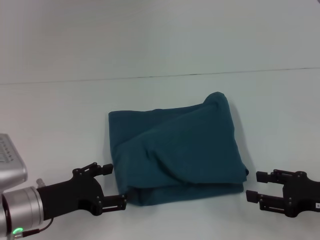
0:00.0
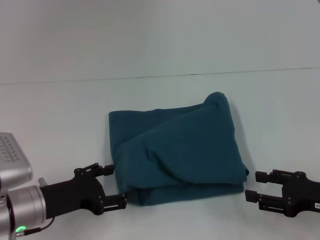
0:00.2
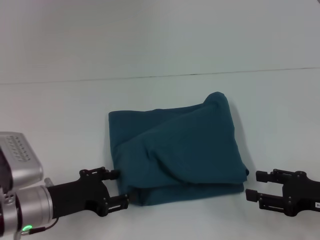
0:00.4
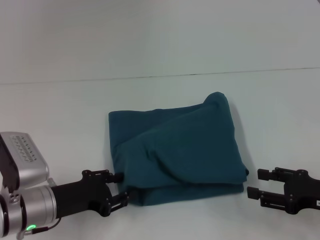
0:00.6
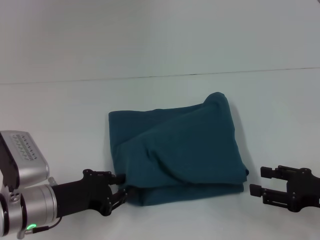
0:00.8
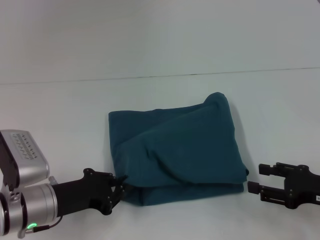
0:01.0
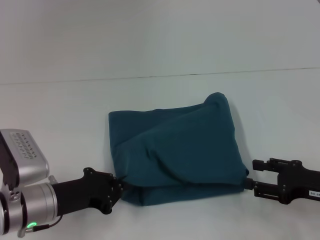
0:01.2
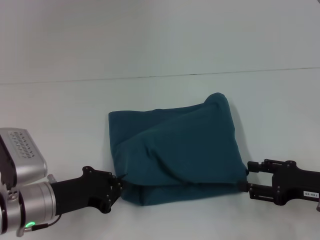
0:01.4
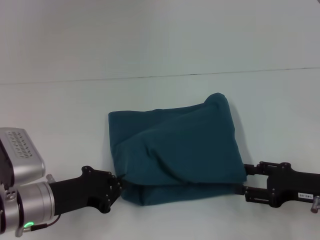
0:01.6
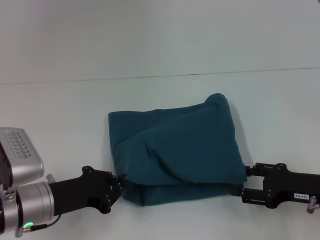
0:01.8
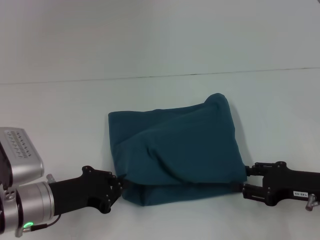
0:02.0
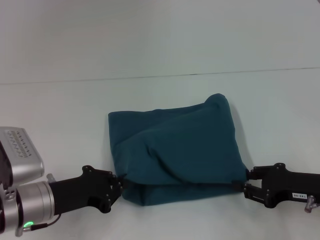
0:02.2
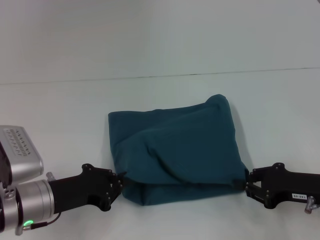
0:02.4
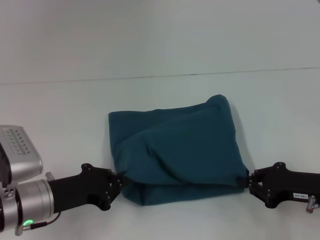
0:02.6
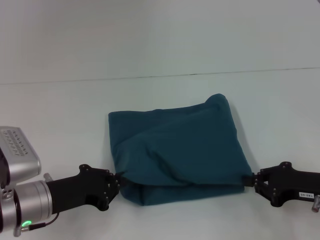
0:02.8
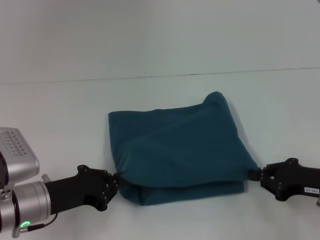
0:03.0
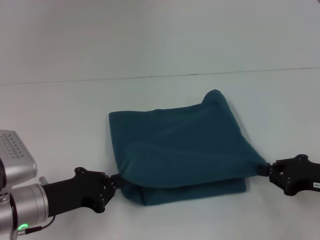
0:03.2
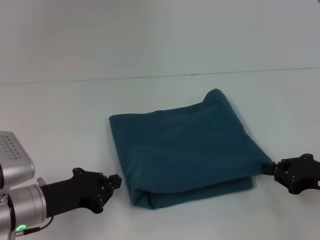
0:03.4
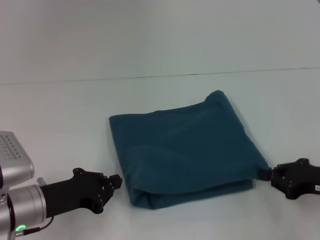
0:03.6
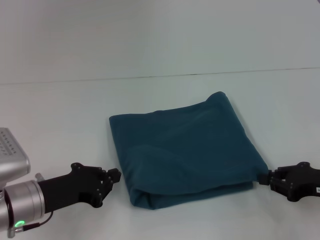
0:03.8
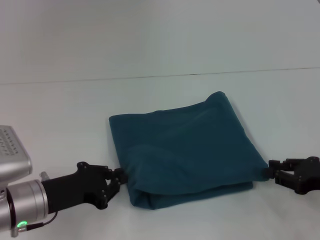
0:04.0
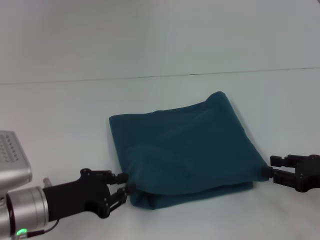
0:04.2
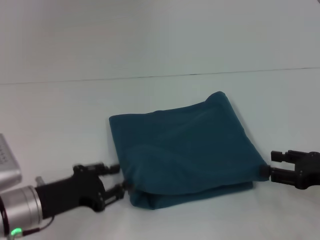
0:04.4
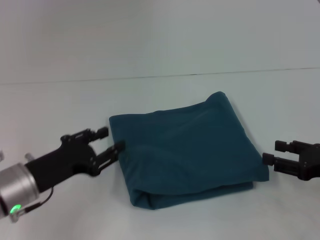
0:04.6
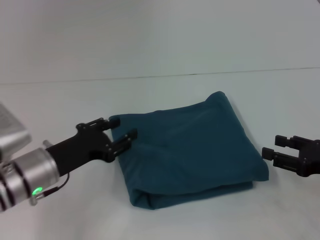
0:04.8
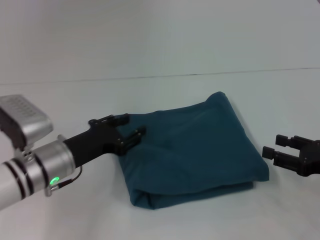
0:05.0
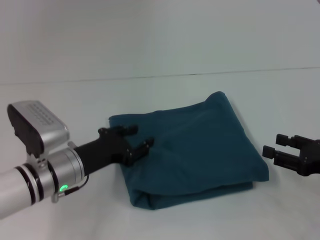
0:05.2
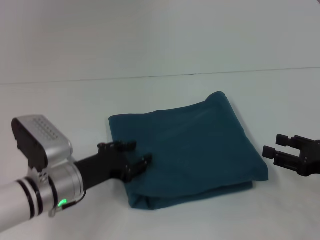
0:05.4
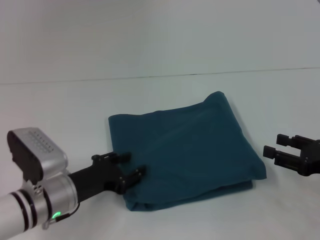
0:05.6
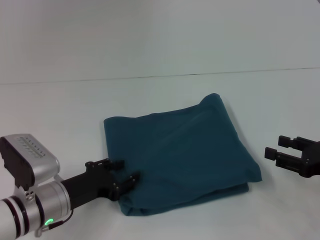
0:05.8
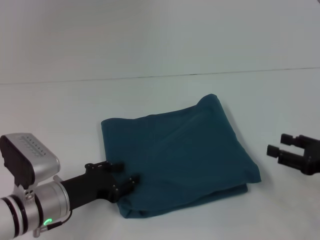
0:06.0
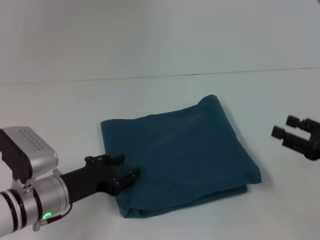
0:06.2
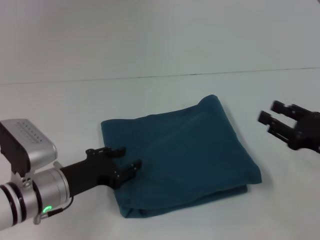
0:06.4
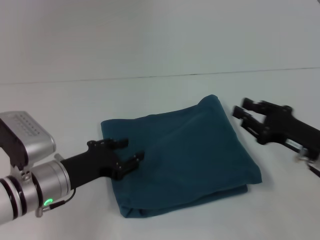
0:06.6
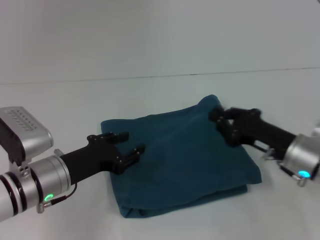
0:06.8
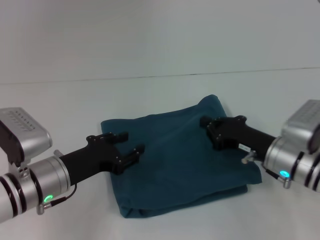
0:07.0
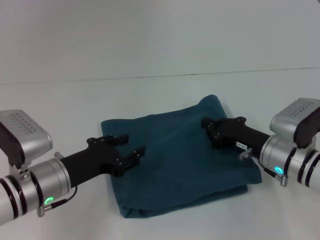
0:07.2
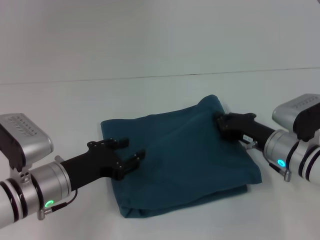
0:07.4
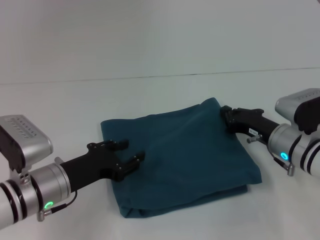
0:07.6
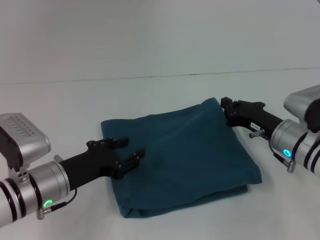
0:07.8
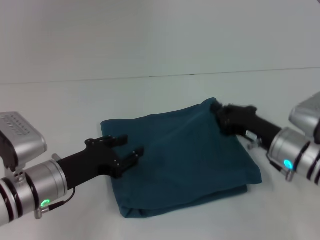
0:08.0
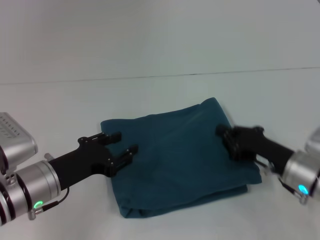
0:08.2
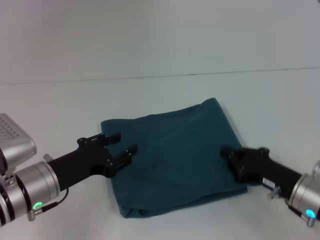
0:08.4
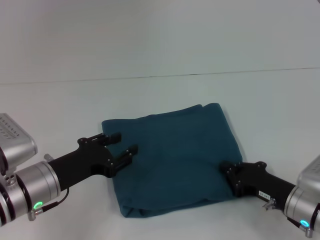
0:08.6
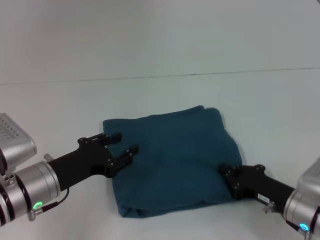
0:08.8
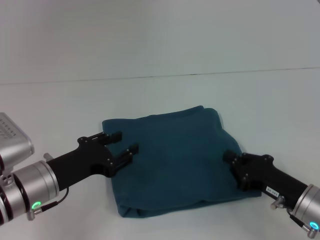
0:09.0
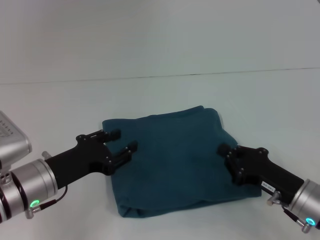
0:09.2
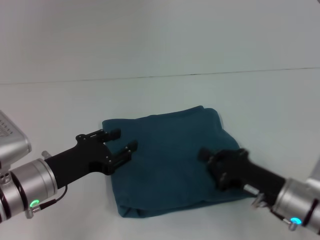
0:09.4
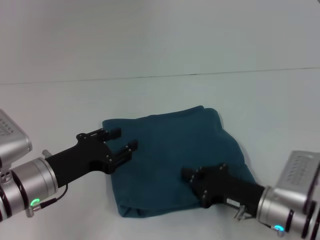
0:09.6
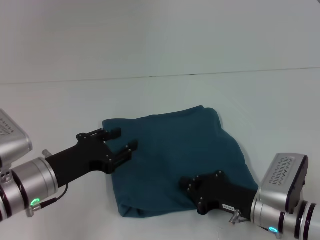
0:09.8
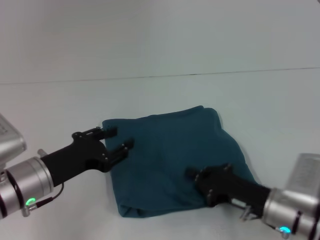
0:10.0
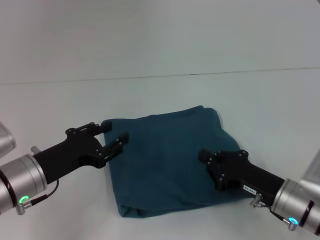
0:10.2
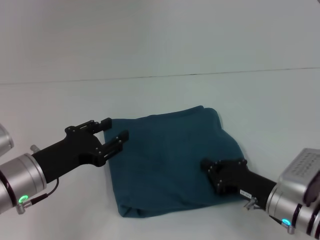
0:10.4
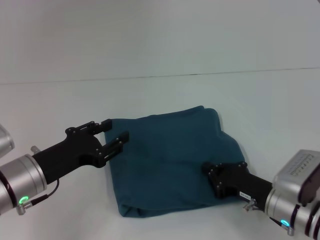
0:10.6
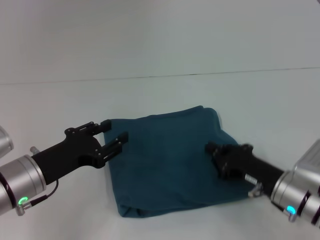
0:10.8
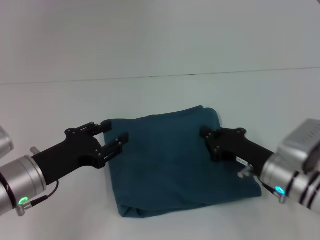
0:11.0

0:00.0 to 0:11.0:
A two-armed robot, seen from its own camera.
0:00.0 to 0:01.6: The left gripper closes its fingers.
0:01.6 to 0:03.2: The right gripper closes.
0:03.2 to 0:04.8: The right gripper opens. The left gripper opens up.
0:04.8 to 0:06.2: The grippers stay close to where they were, moving slightly.
0:06.2 to 0:07.8: The right gripper goes approximately 15 cm to the left and forward, and closes up.
0:07.8 to 0:09.4: The right gripper heads backward, covering roughly 10 cm.
0:09.4 to 0:11.0: There are only small adjustments of the grippers.

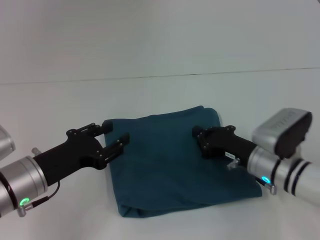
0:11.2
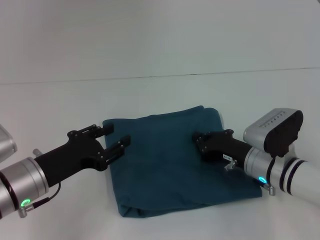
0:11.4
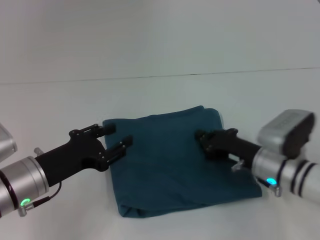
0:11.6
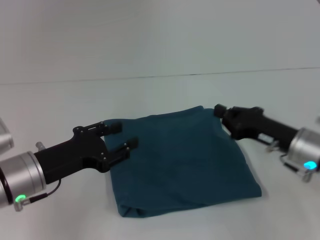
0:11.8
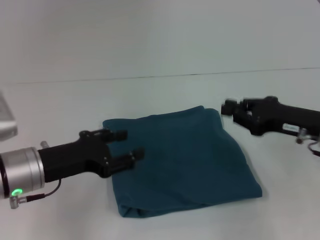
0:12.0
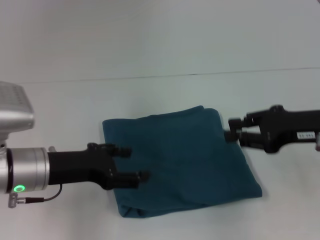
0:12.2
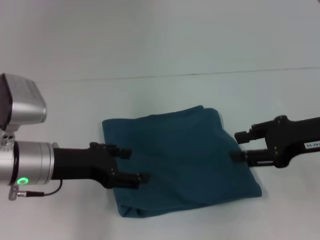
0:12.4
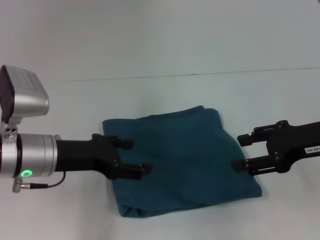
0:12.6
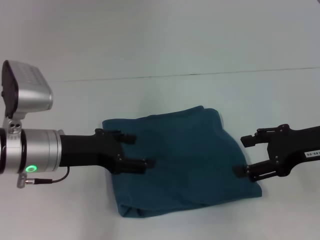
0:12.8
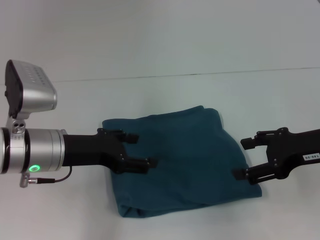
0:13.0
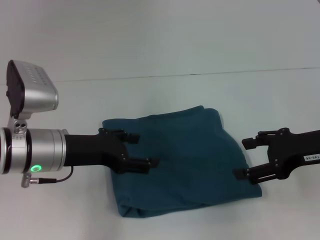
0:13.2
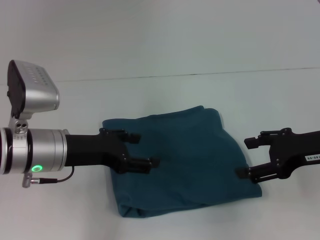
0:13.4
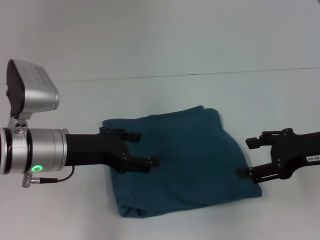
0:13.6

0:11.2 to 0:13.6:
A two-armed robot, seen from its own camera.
0:11.2 to 0:12.4: The right gripper is displaced upward and to the right by approximately 15 cm, while the left gripper shifts by approximately 5 cm.
0:12.4 to 0:13.6: The right gripper opens up.

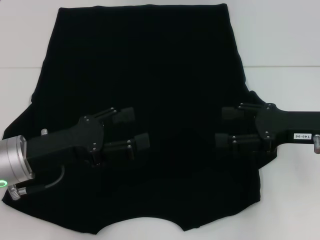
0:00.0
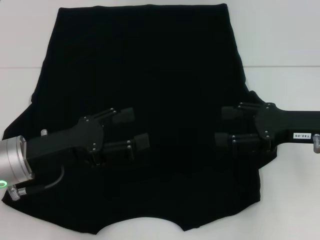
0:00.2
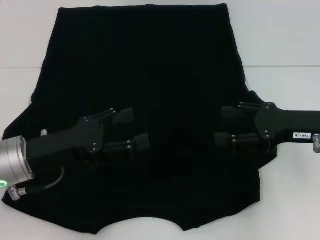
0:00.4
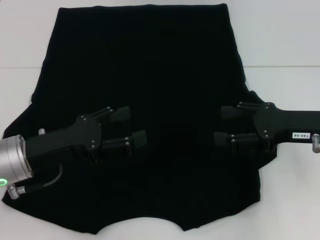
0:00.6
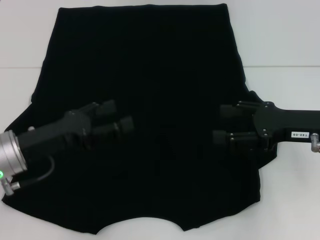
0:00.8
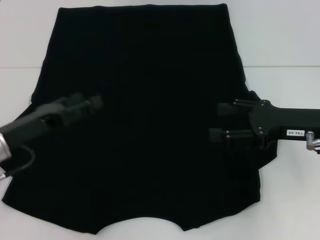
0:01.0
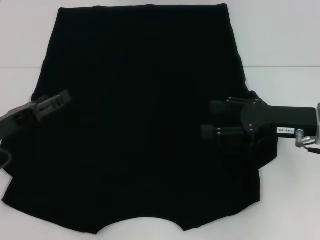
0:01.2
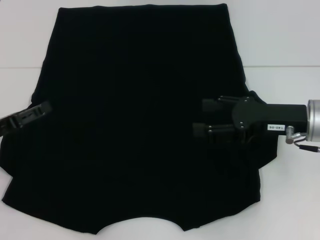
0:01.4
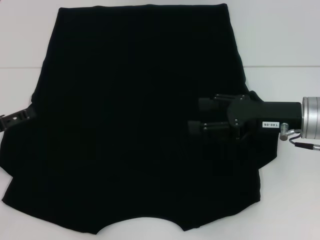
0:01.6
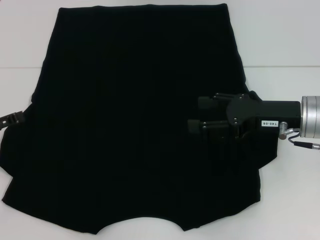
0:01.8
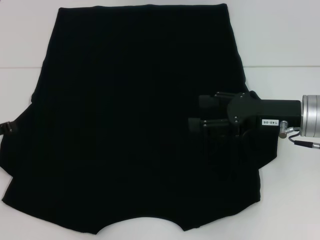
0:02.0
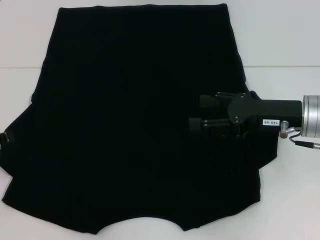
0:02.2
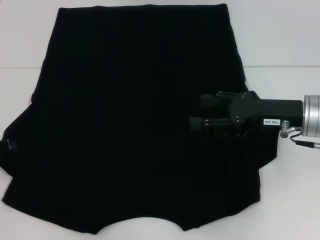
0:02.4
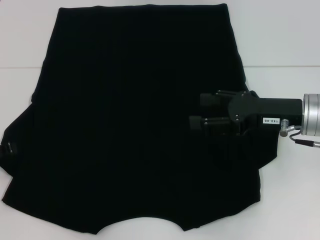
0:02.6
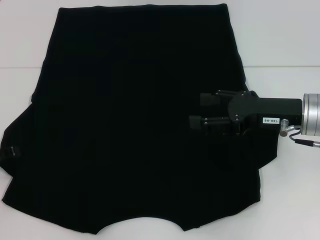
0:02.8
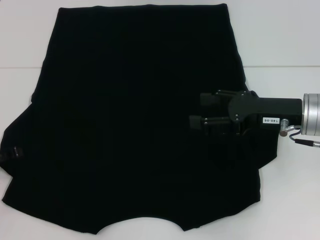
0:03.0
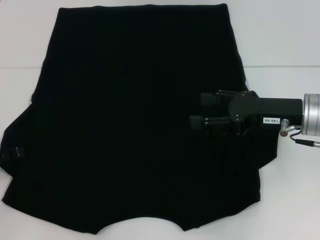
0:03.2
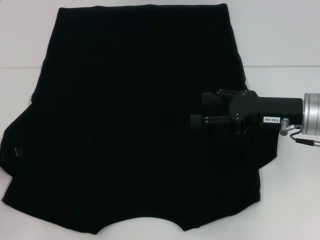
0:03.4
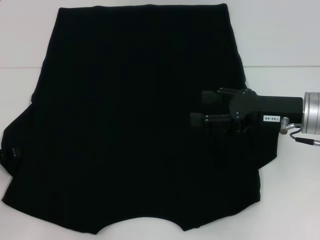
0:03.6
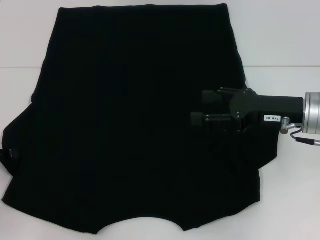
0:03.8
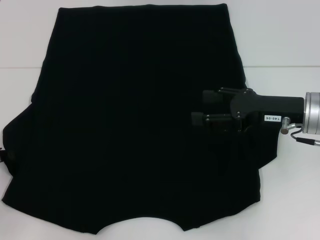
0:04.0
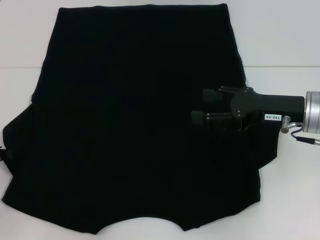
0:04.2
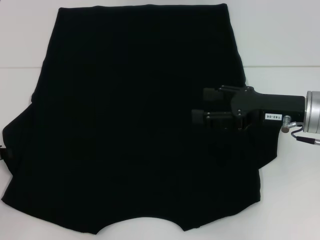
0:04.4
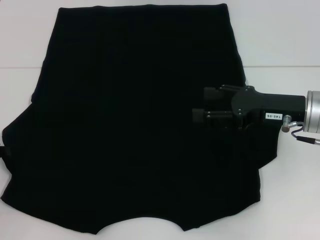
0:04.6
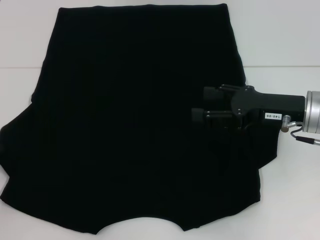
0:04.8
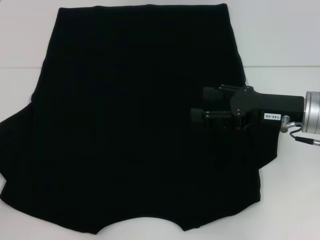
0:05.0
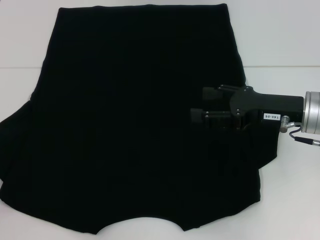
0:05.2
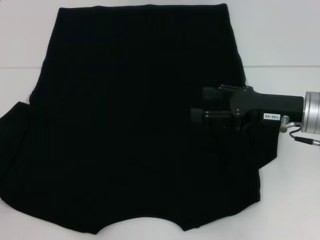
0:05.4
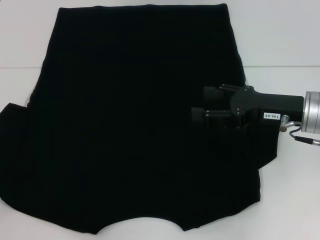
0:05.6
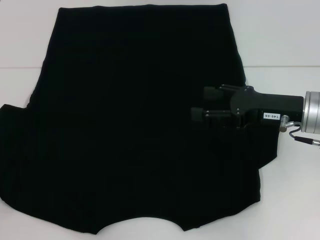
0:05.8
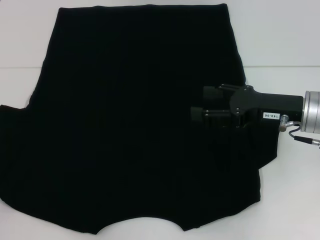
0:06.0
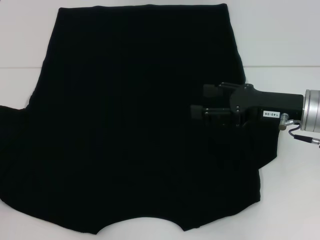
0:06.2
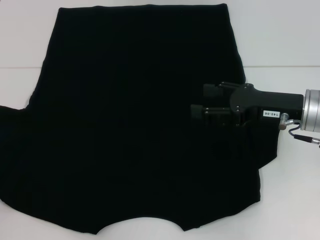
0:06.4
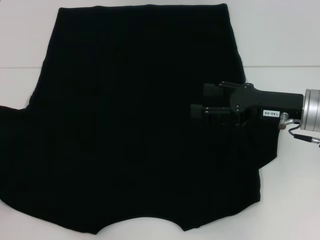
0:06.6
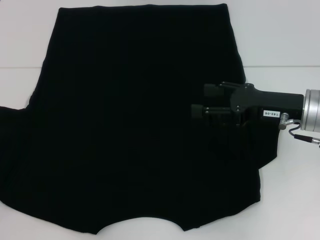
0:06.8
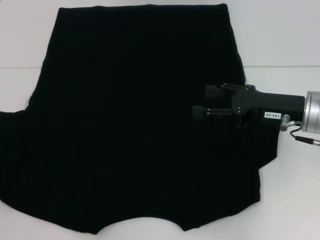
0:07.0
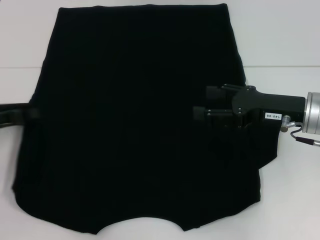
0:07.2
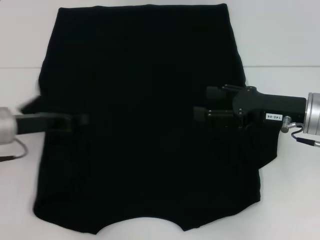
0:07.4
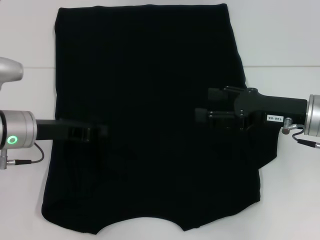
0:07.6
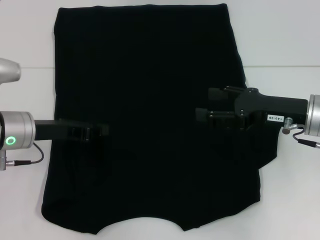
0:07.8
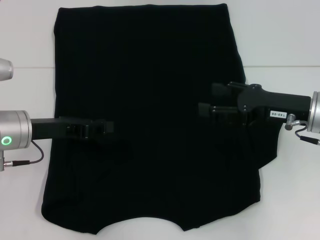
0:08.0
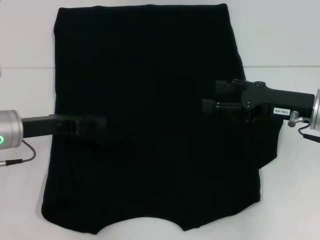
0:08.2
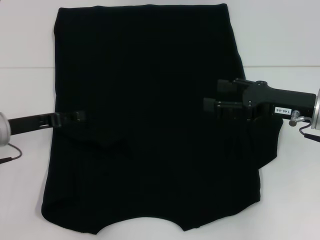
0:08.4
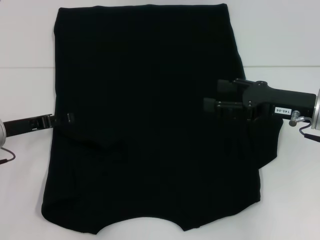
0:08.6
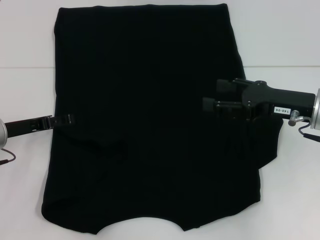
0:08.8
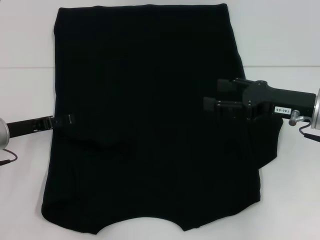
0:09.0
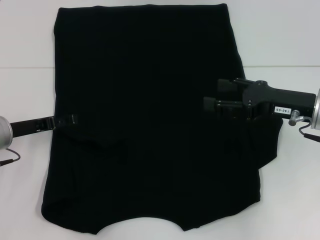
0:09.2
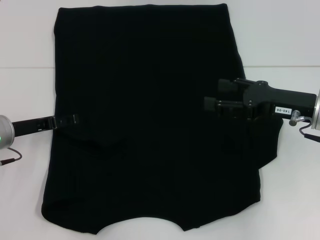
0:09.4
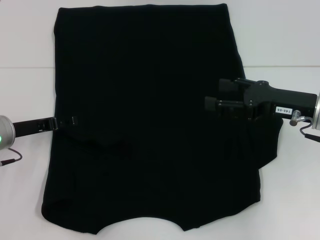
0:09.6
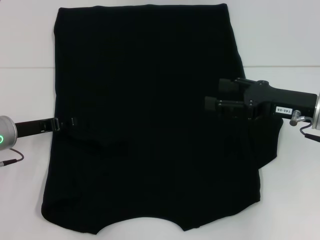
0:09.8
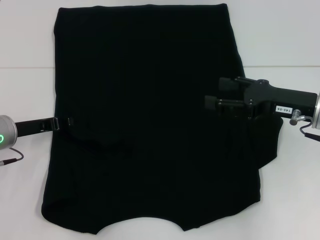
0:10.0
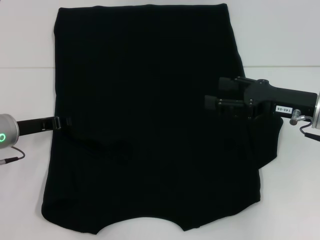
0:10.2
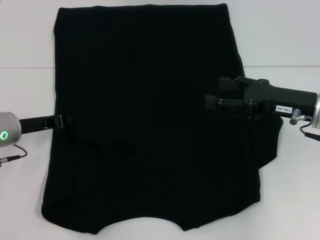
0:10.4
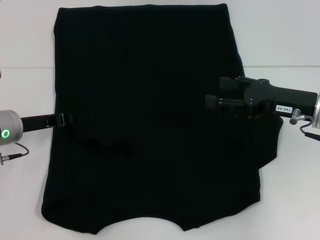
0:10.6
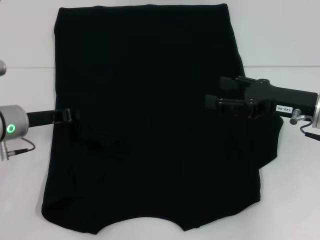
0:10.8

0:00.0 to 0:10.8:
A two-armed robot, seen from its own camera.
0:00.0 to 0:01.6: The left gripper is displaced to the left by some 10 cm.
0:01.6 to 0:03.0: There are only small adjustments of the grippers.
0:04.6 to 0:06.2: The left gripper moves some 5 cm.
0:06.2 to 0:07.8: The left gripper heads to the right and forward, covering some 20 cm.
0:07.8 to 0:09.2: The left gripper moves some 5 cm, and opens.
0:09.2 to 0:10.8: The left gripper closes.
